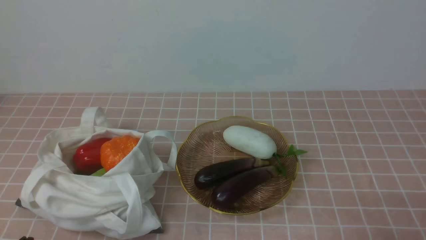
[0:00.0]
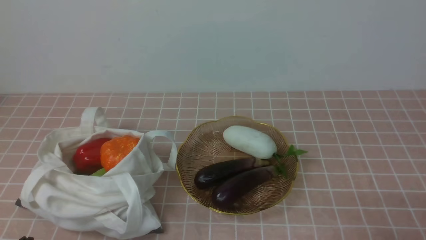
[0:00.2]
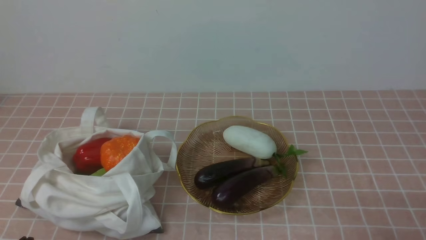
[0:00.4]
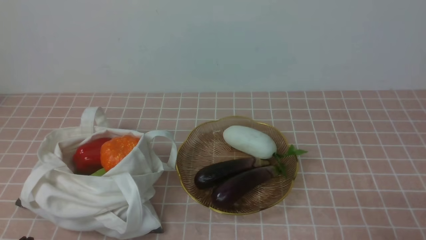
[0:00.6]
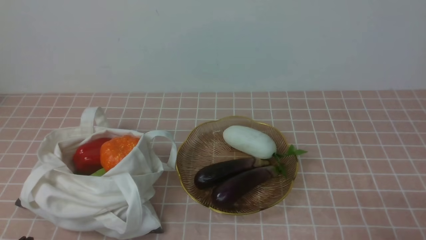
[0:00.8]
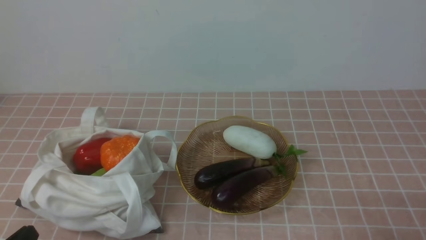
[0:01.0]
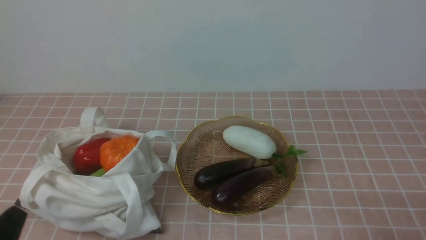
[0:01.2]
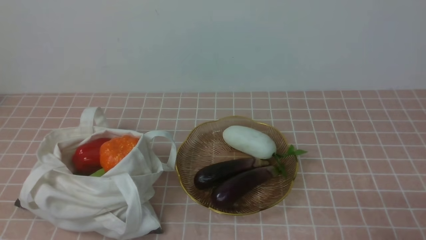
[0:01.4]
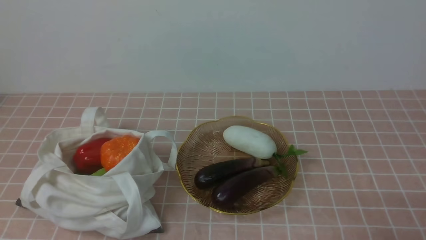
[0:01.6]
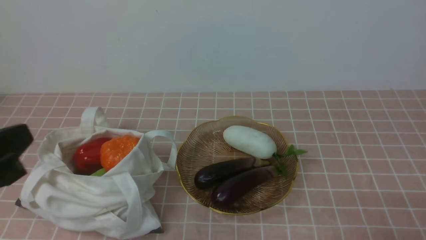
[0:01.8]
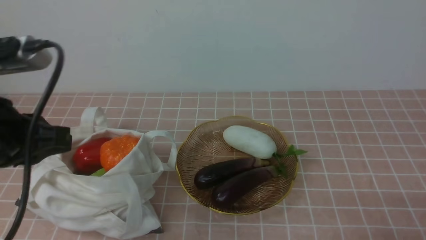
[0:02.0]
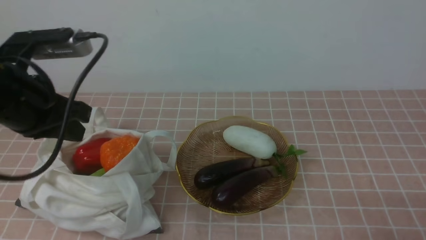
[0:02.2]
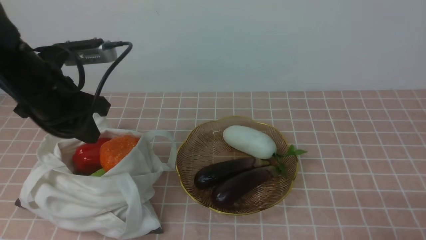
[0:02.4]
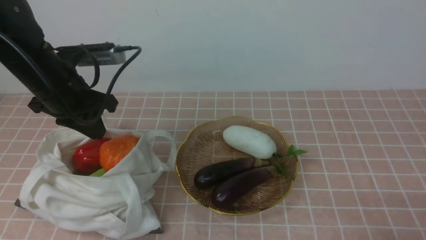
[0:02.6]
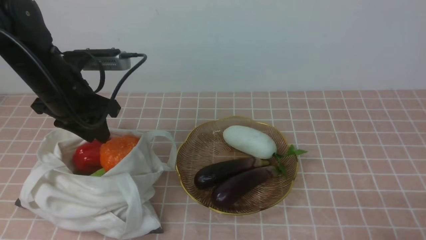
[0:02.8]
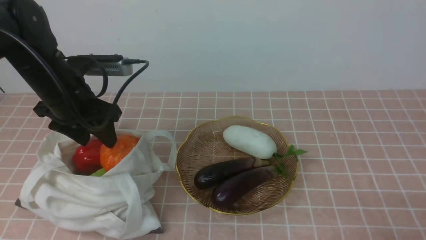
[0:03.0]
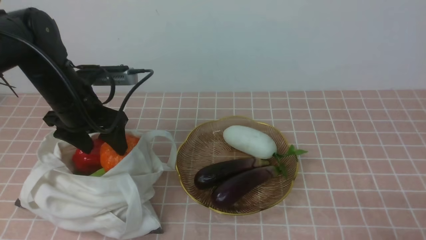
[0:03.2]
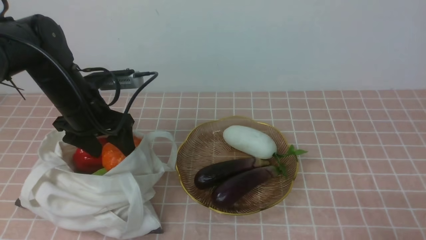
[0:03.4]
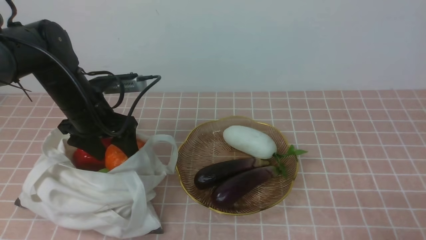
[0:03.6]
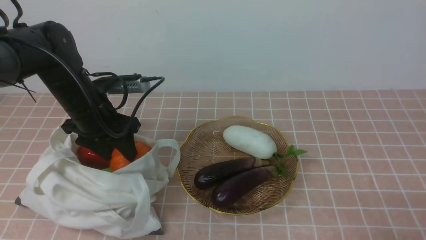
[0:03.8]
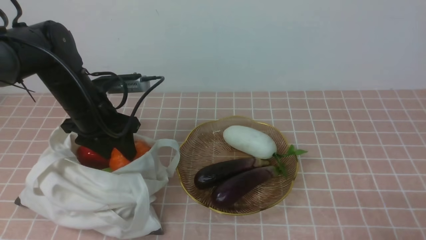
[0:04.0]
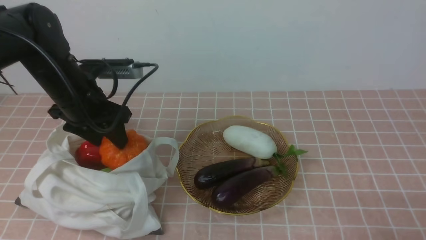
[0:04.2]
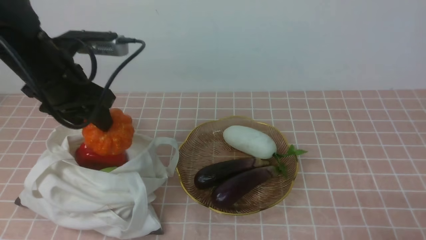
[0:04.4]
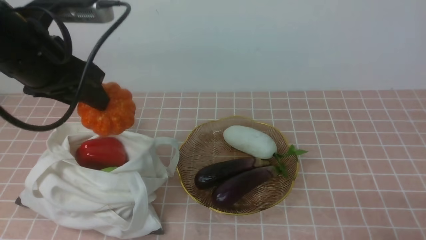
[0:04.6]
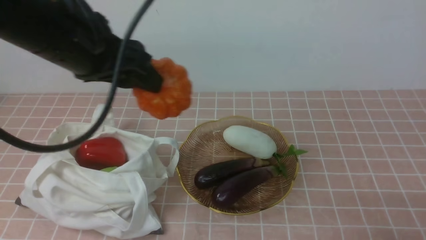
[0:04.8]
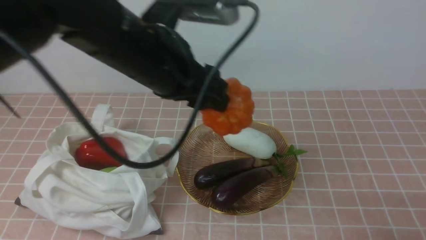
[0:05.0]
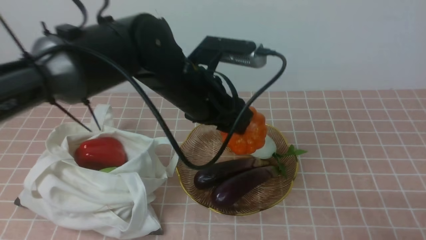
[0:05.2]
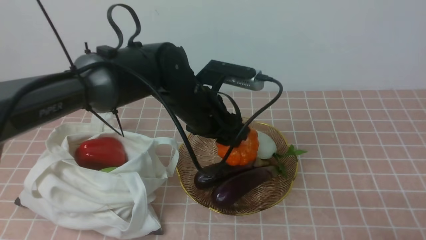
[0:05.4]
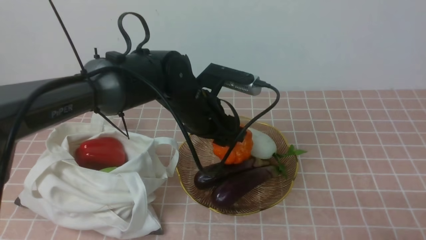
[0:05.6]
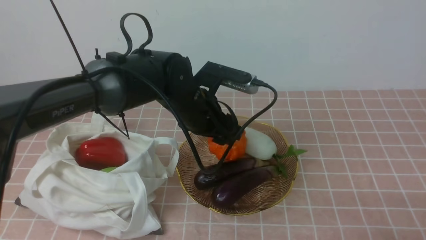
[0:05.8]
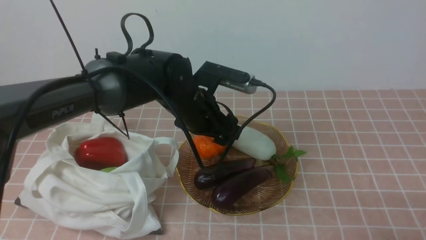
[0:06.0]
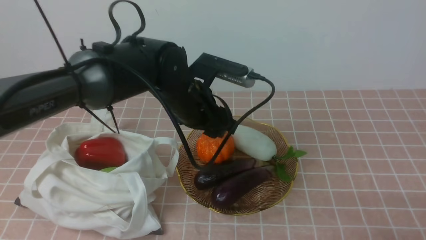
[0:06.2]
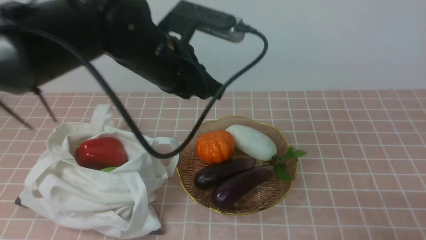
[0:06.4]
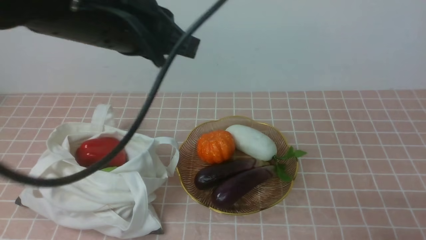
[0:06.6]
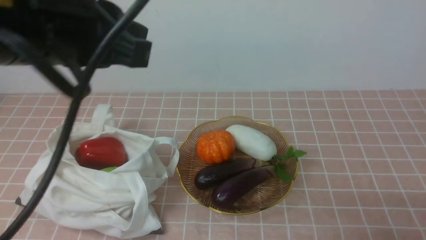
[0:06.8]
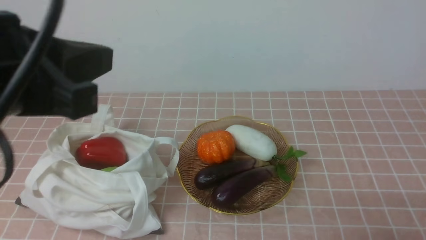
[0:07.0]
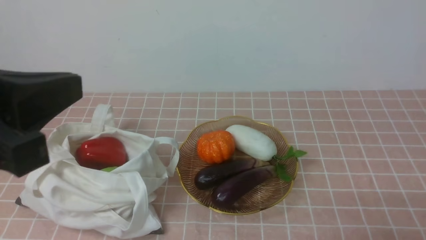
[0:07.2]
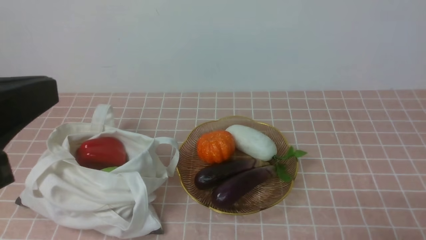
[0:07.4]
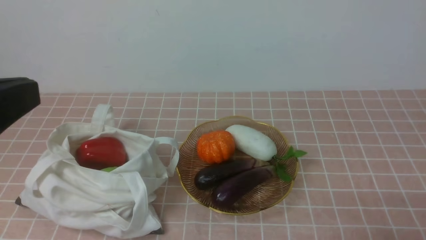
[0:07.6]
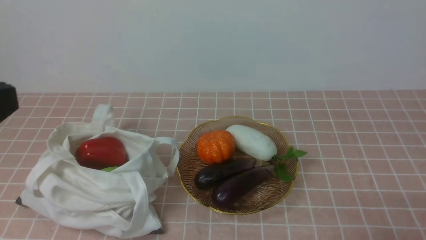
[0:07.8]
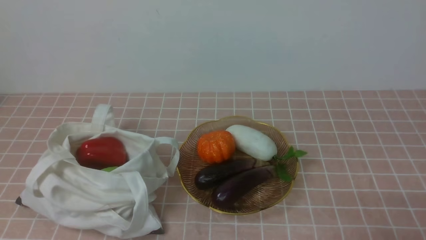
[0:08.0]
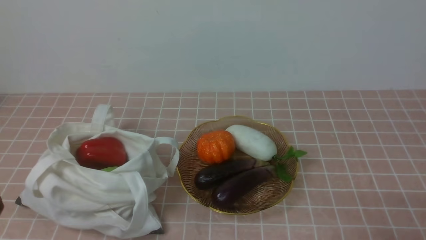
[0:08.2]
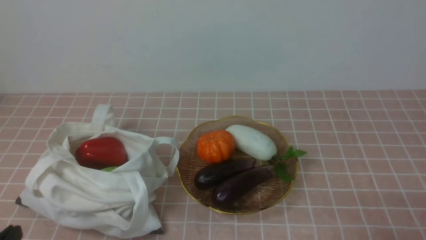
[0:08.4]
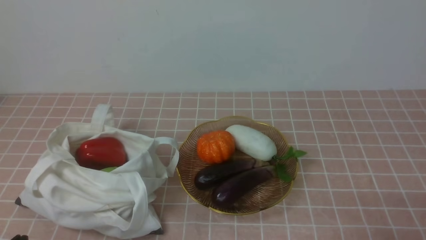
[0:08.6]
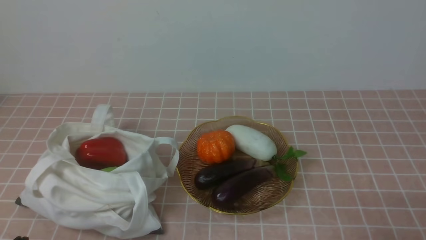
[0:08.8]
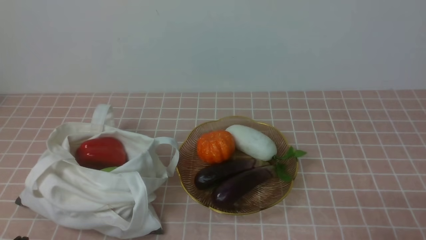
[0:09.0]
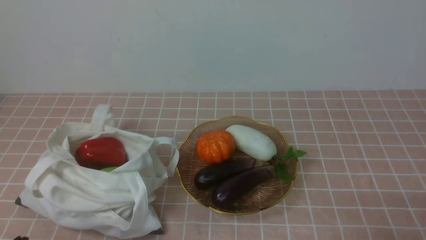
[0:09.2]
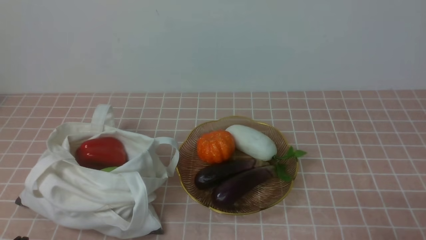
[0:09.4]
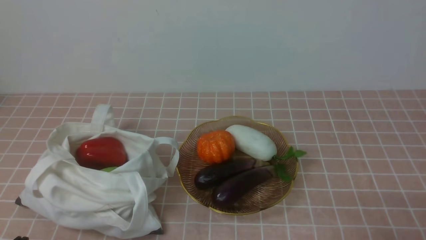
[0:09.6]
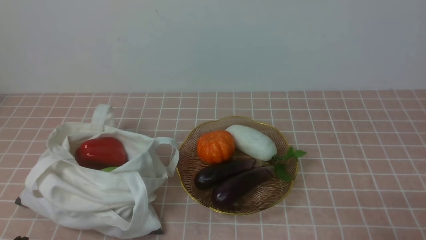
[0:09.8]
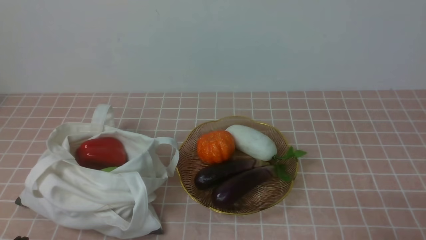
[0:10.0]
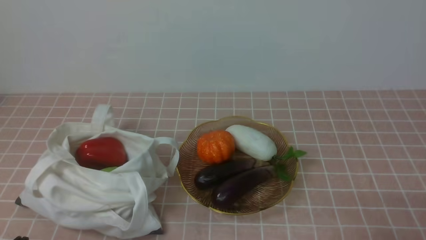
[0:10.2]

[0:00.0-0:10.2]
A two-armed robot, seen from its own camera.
Task of the whole recording: take vegetables from bag on pink coffee tablecloth place on plate.
Step, 0:00.0 to 0:03.8: Grasp the pumpkin with left gripper.
Step, 0:04.0 to 0:06.2: Place the pumpkin on the plate with left gripper.
0:01.4 to 0:03.0: The left gripper travels forward by approximately 30 cm, and opens up.
0:03.0 to 0:04.4: The grippers stay close to where they were, moving slightly.
0:04.4 to 0:05.8: The left gripper shifts approximately 20 cm to the right and downward.
0:05.8 to 0:07.2: The left gripper shifts approximately 35 cm backward, upward and to the left, and closes up.
0:07.2 to 0:08.8: The left gripper moves downward, some 25 cm.
0:08.8 to 0:10.2: The two grippers keep their place.
